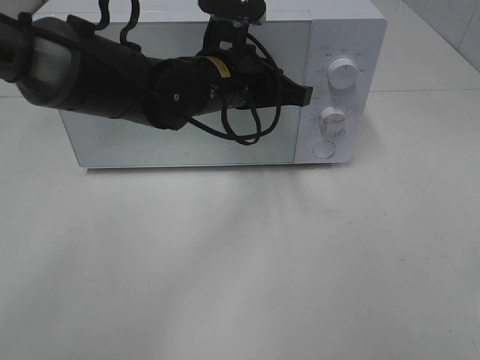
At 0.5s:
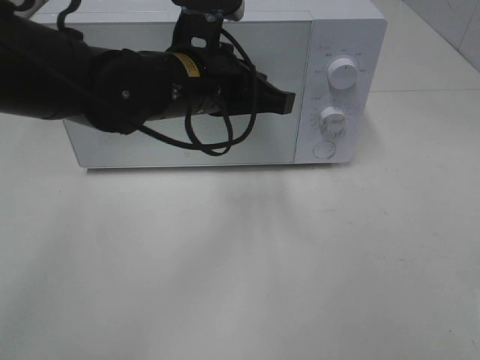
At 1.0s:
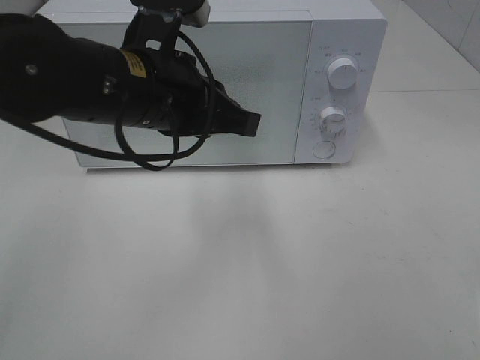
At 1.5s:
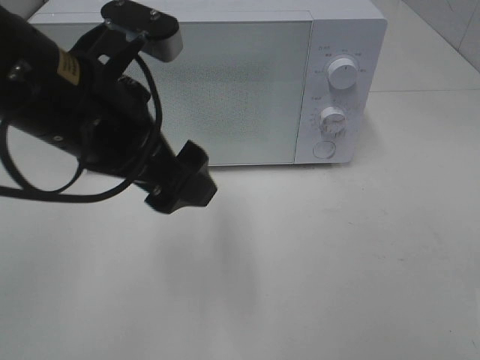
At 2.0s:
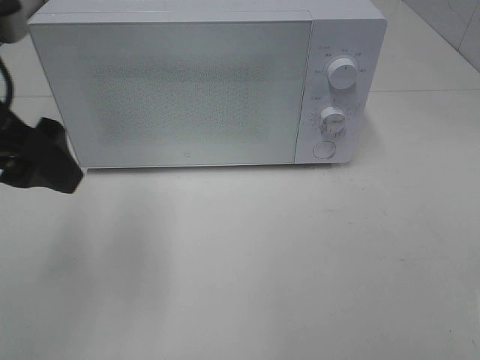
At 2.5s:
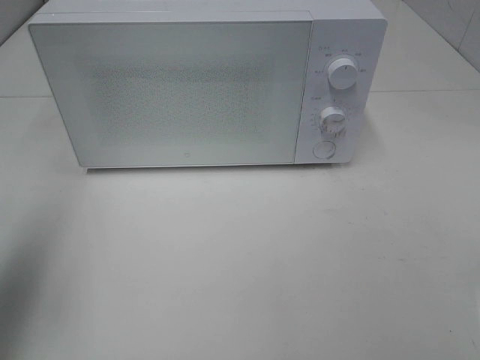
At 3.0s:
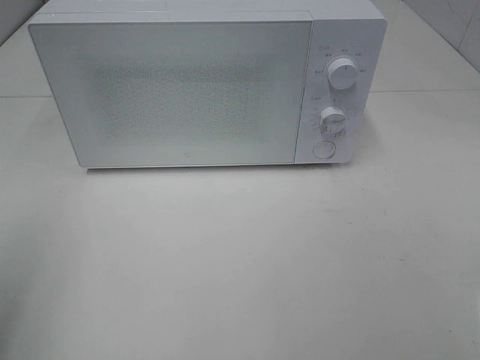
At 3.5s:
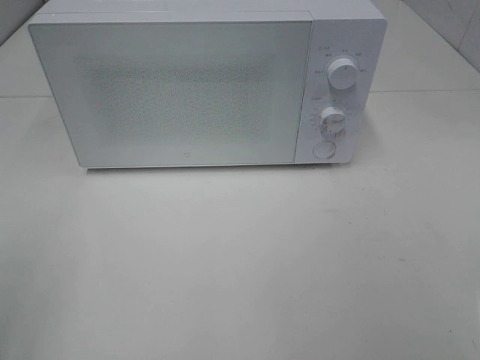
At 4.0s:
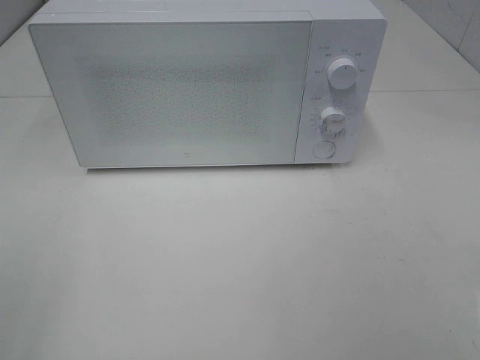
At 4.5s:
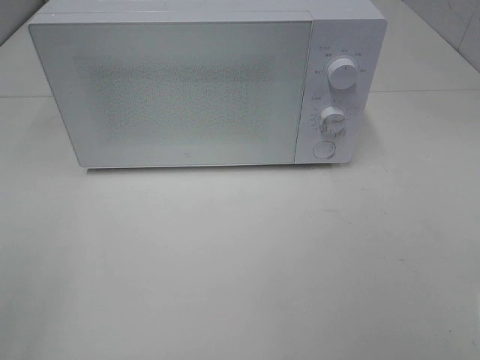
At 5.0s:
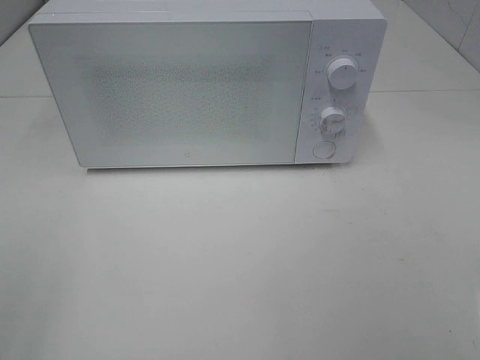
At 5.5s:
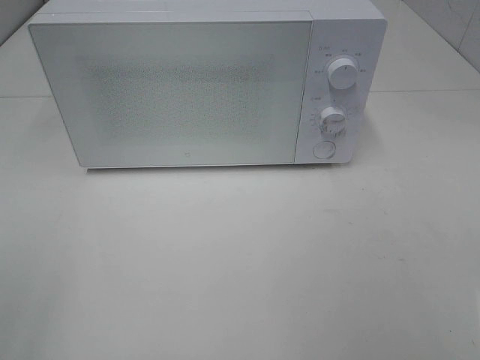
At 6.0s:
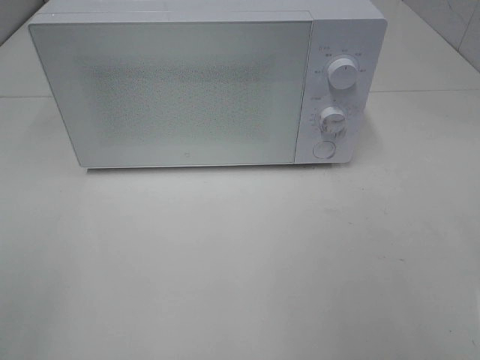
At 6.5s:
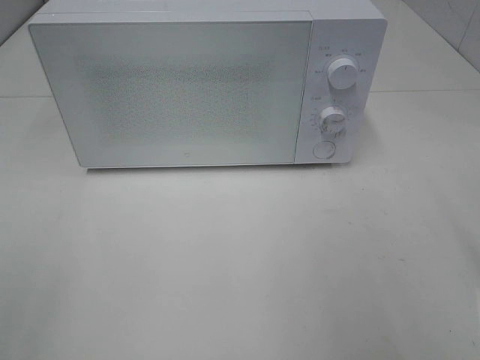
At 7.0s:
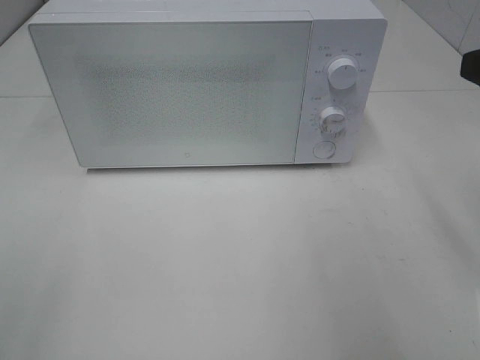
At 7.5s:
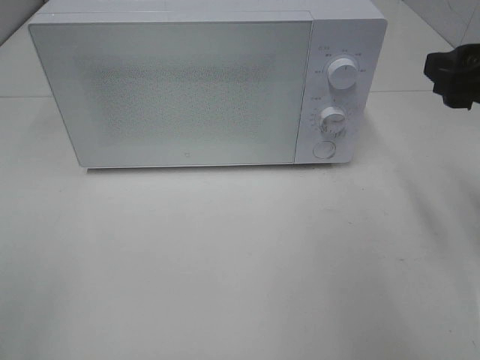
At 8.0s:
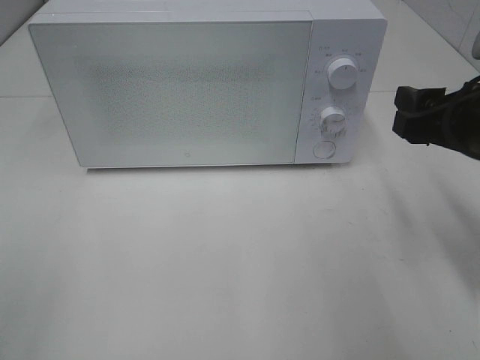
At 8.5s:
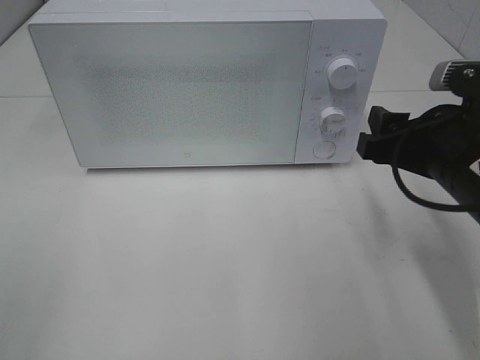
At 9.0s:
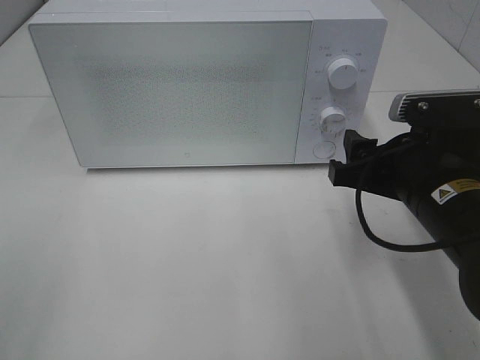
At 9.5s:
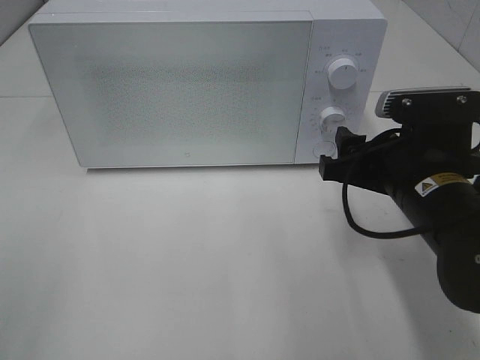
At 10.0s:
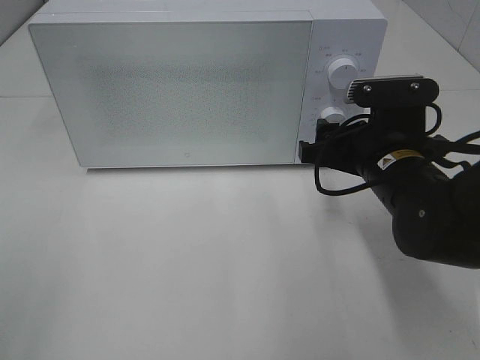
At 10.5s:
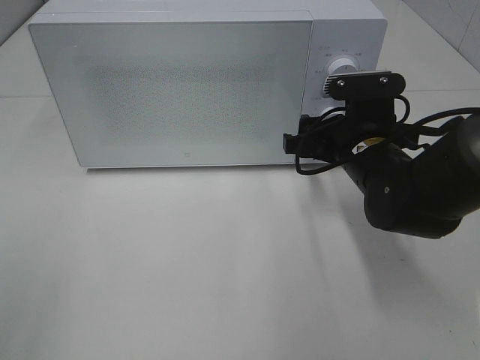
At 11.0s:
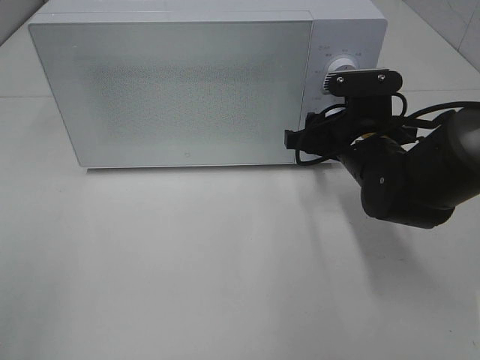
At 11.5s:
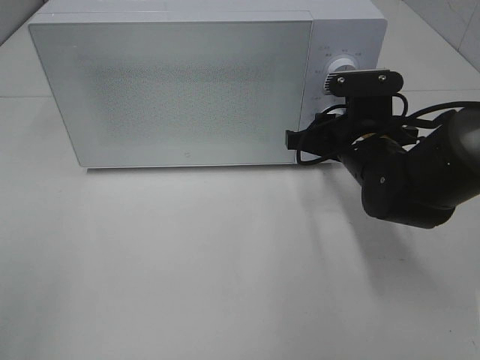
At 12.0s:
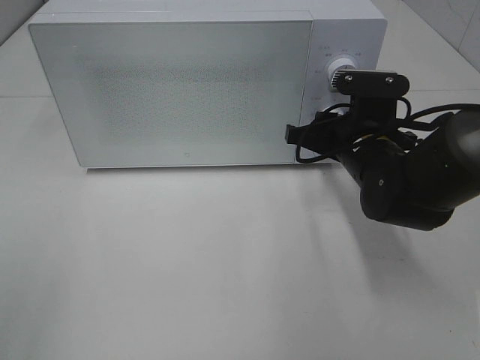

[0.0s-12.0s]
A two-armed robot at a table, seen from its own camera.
Task of the whole recording: Heat Sandwich.
0.0s to 2.0s: The left gripper moves to the left, backward and upward, roughly 25 cm, and opens its fingers.
2.0s to 4.0s: The left gripper is displaced backward and to the left by approximately 25 cm.
6.0s to 8.0s: The right gripper moves forward and downward, roughly 20 cm.
8.0s to 10.0s: The right gripper heads to the left and downward, covering about 10 cm.
10.0s to 12.0s: The right gripper ends up about 5 cm from where it was, and closes its fingers.

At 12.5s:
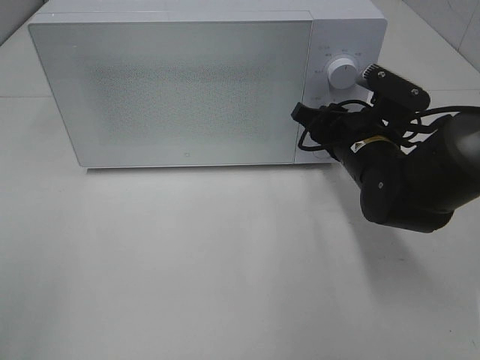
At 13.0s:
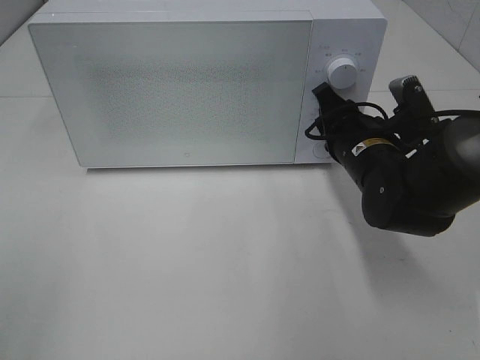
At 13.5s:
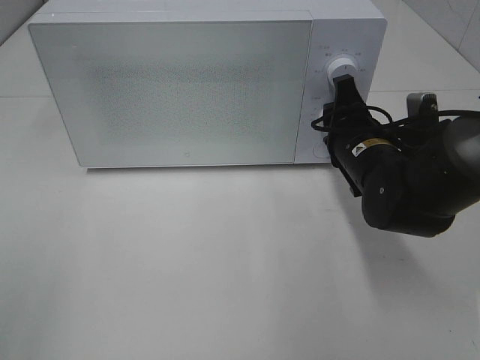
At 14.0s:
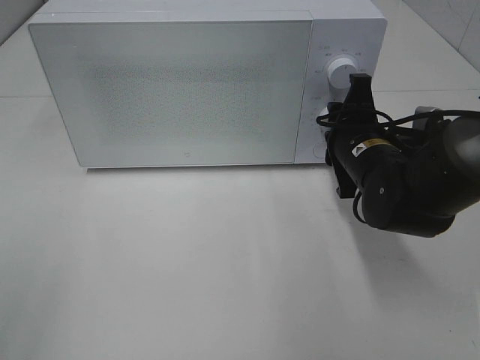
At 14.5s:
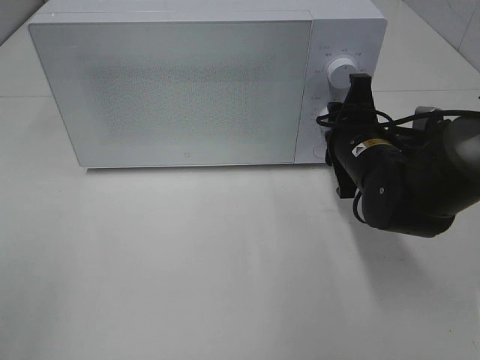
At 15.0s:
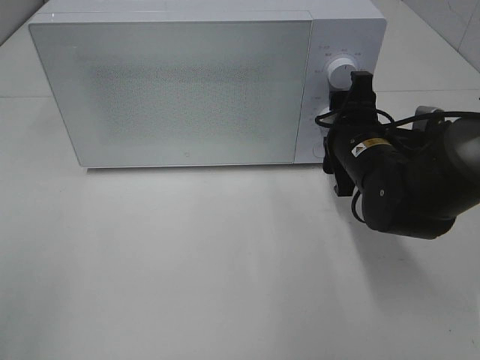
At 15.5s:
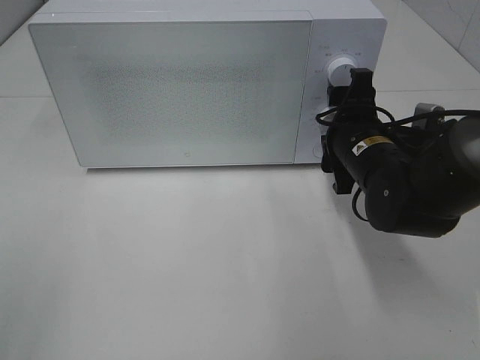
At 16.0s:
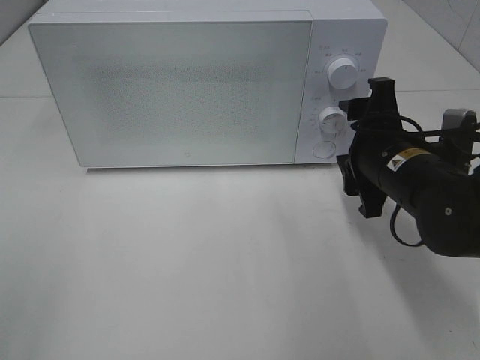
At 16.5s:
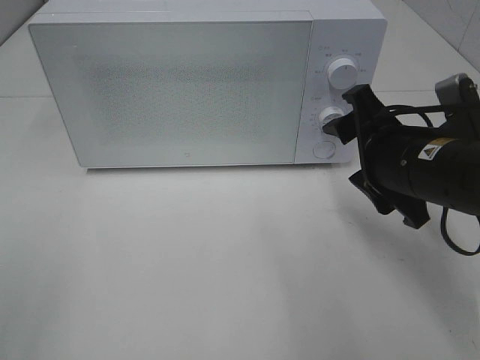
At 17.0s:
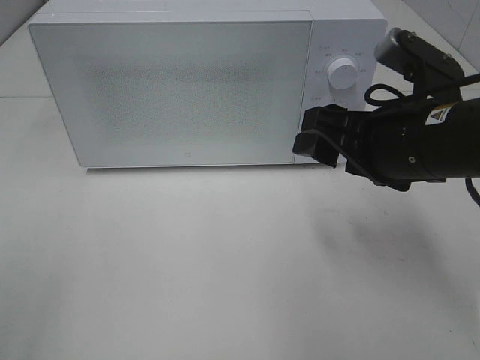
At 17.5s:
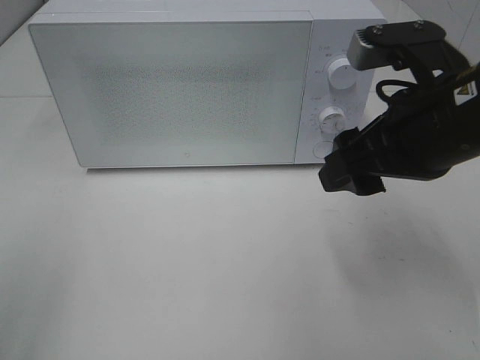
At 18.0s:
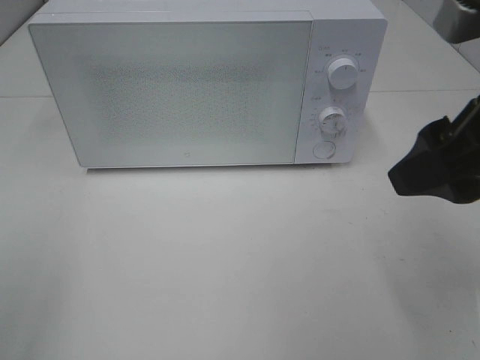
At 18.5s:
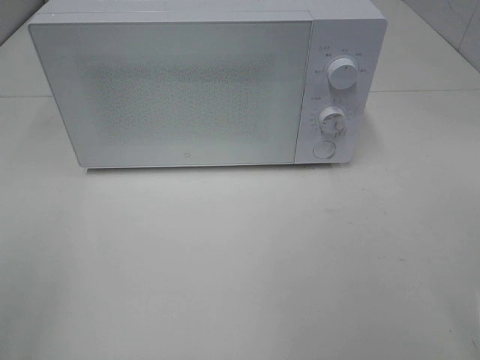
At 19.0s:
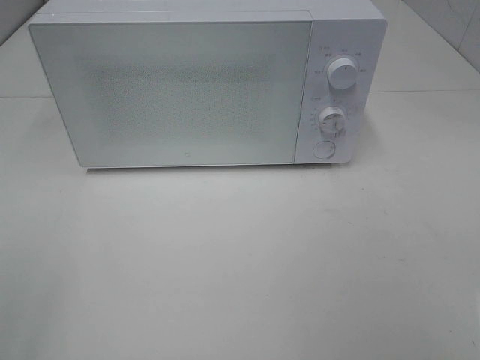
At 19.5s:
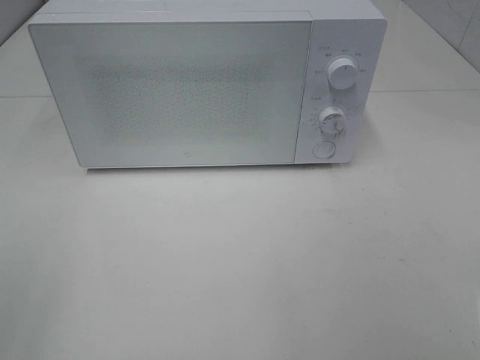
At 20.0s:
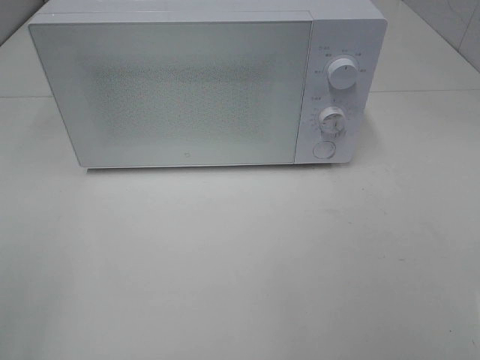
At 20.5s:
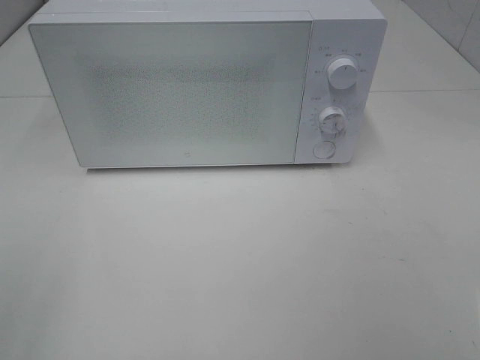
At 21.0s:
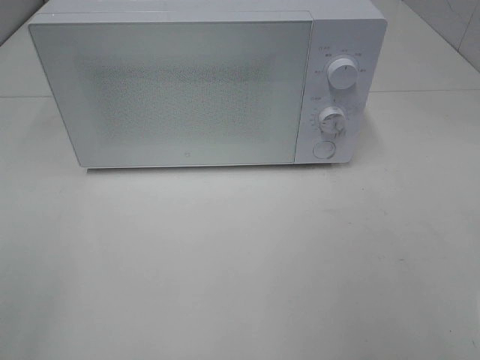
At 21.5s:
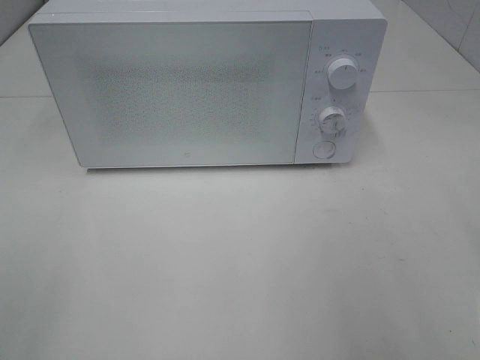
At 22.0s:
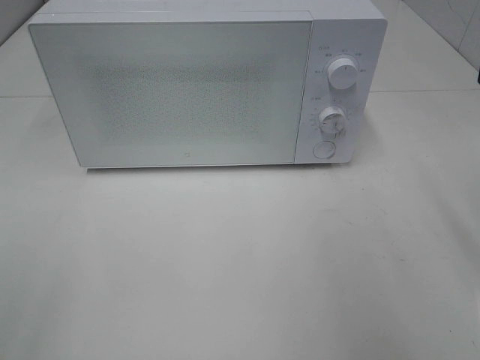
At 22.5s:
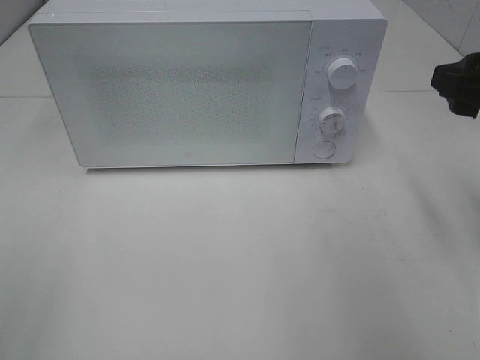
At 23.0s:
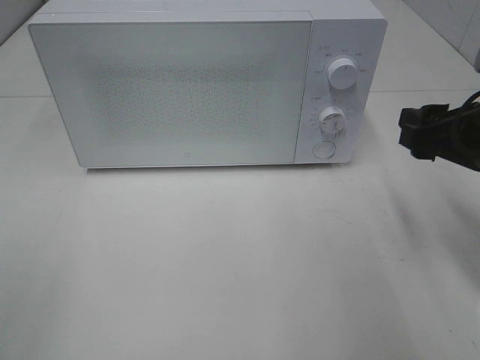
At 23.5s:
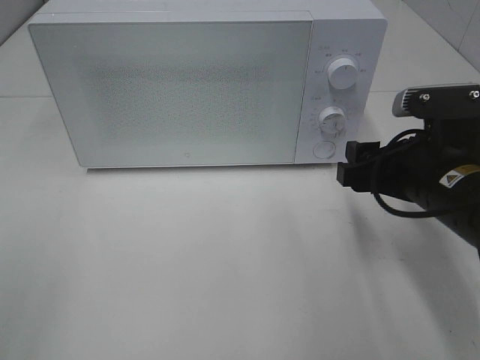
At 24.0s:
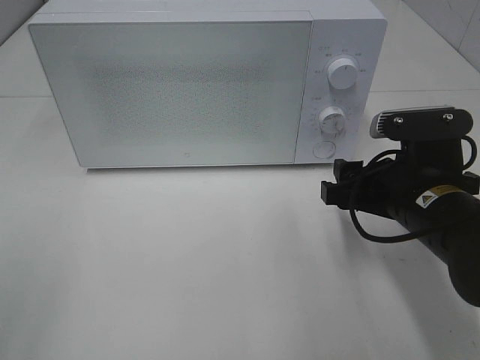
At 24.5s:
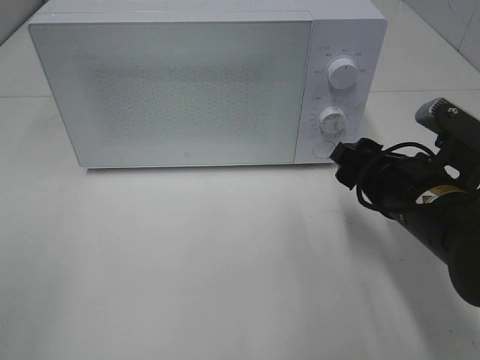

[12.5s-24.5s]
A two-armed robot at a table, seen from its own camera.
Task of the whole recording: Heat Sandwich.
Step, 12.5s to 15.0s: Right hand: twist timer button.
14.5s to 16.5s: The right gripper moves backward and upward, approximately 10 cm, and opens.
16.5s to 18.5s: The right gripper goes some 20 cm upward, backward and to the right.
20.5s to 22.5s: The right gripper travels forward by about 25 cm.
22.5s to 24.5s: The right gripper is displaced downward and to the left by some 15 cm.

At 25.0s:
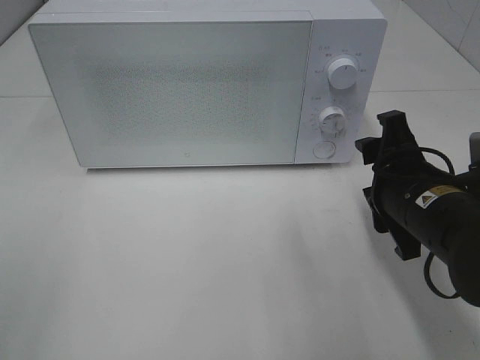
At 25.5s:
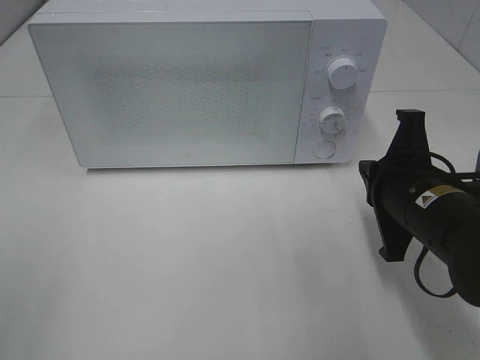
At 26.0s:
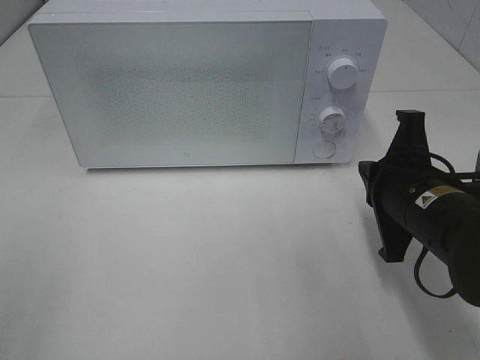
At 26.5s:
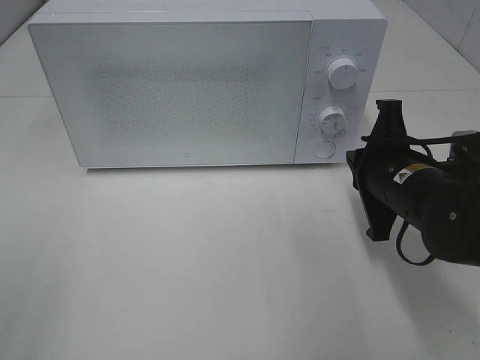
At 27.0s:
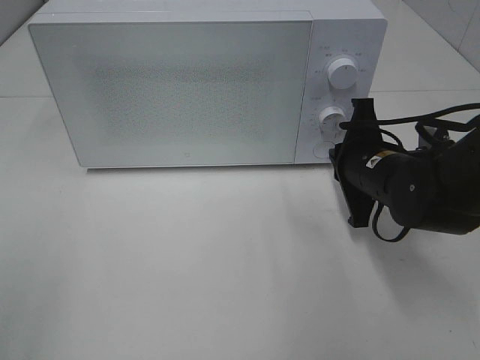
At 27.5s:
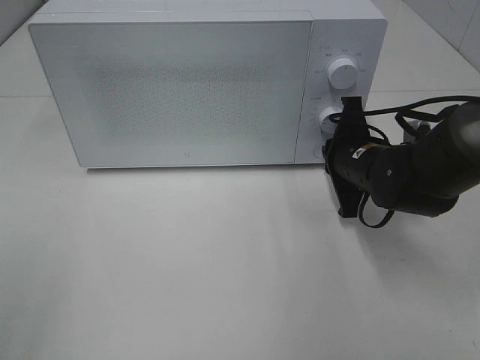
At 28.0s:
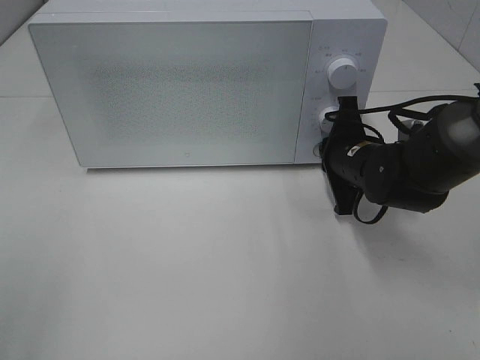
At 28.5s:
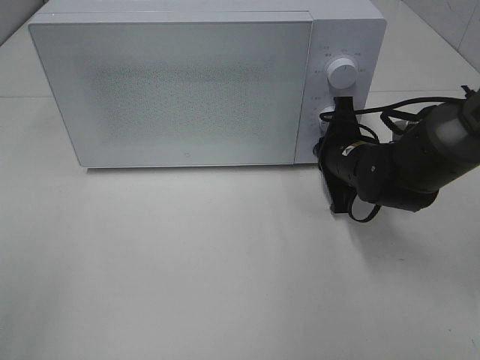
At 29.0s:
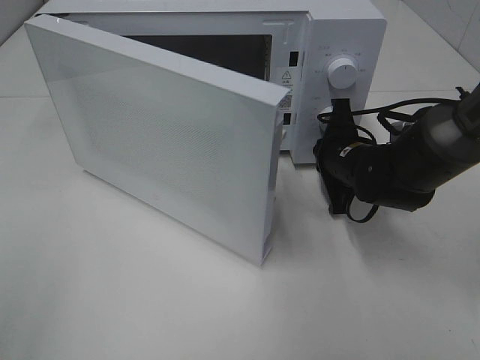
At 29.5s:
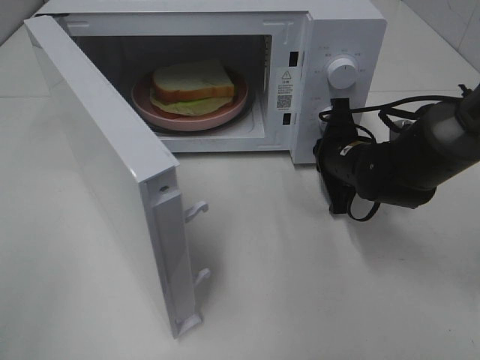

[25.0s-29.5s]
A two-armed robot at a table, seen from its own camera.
Task of the whole recording: Heat Sandwich.
25.0s to 27.0s: The right gripper is displaced forward by some 10 cm, and closes up.
27.0s to 29.5s: The right gripper heads forward, covering about 5 cm.
